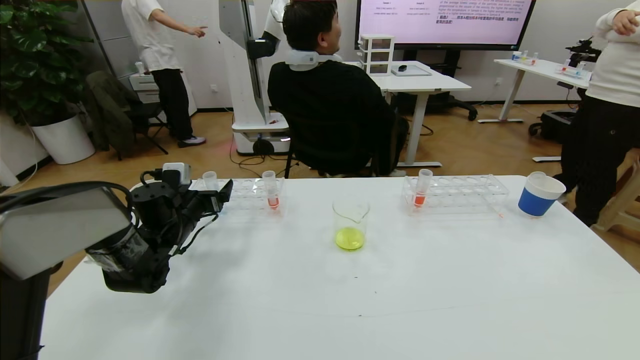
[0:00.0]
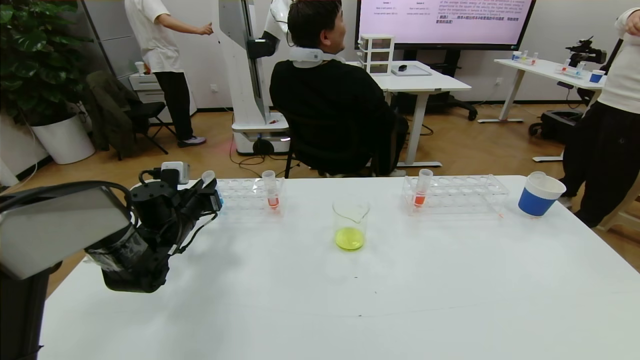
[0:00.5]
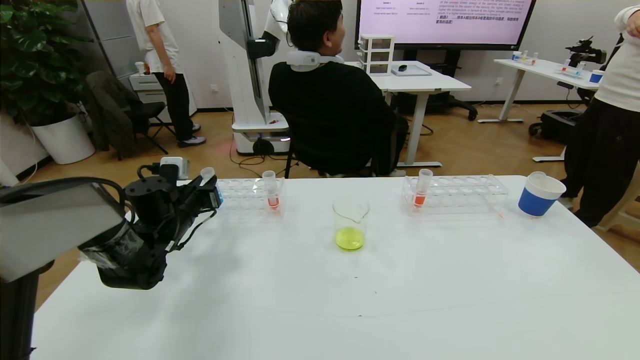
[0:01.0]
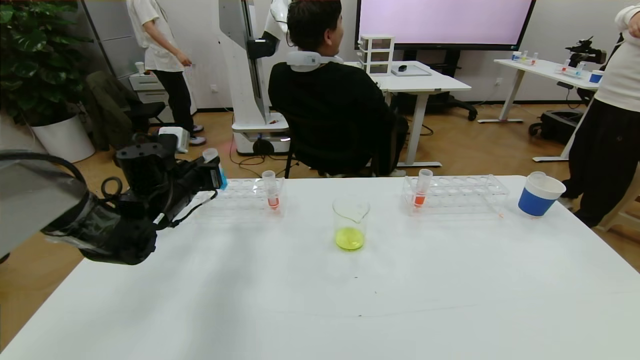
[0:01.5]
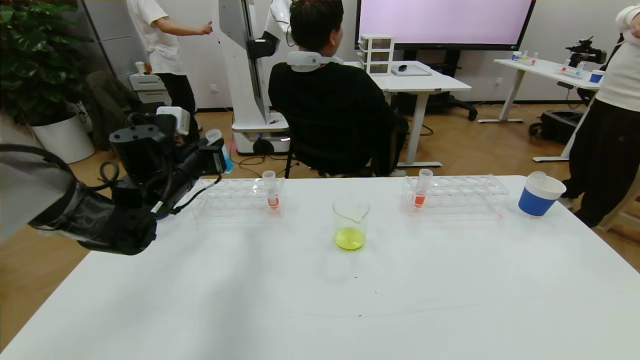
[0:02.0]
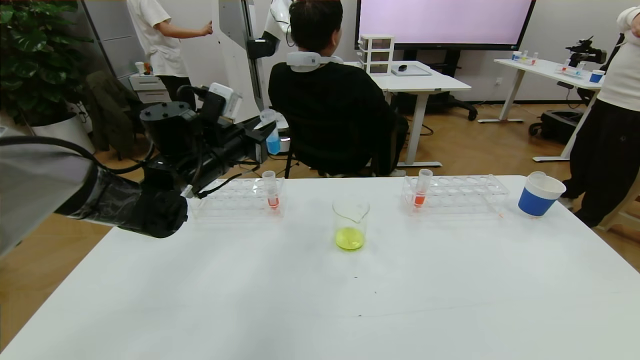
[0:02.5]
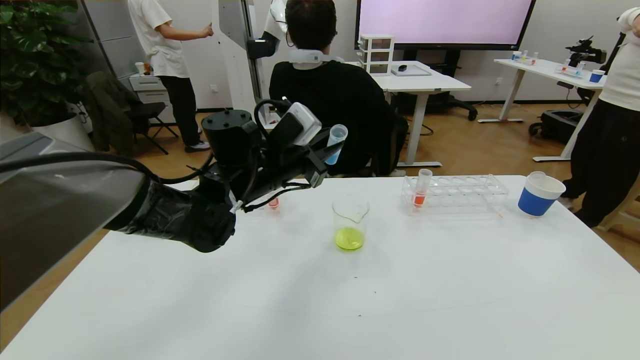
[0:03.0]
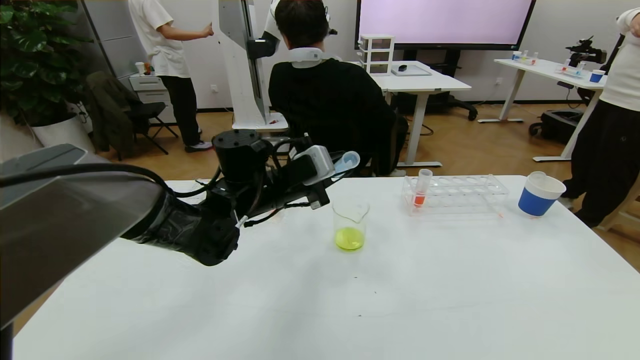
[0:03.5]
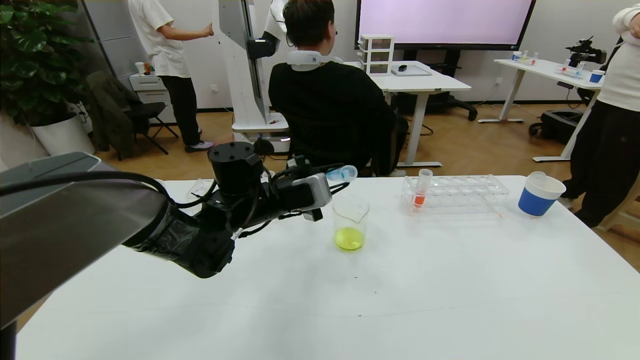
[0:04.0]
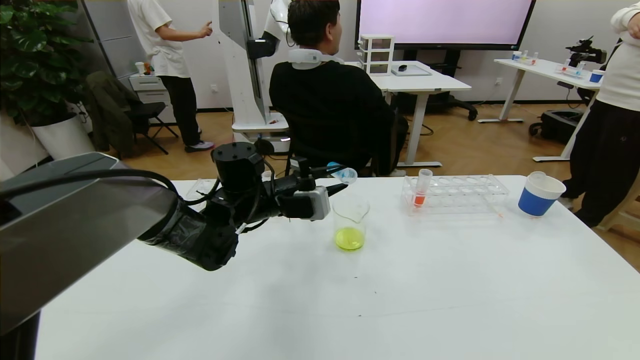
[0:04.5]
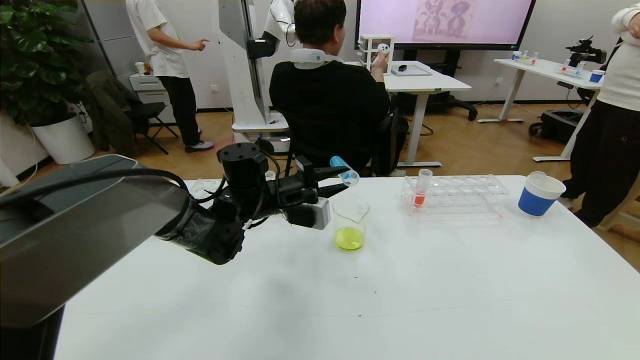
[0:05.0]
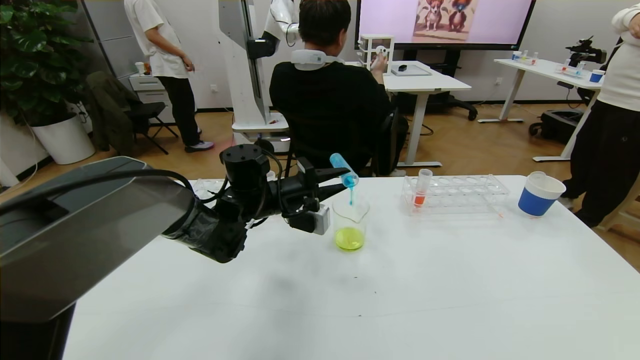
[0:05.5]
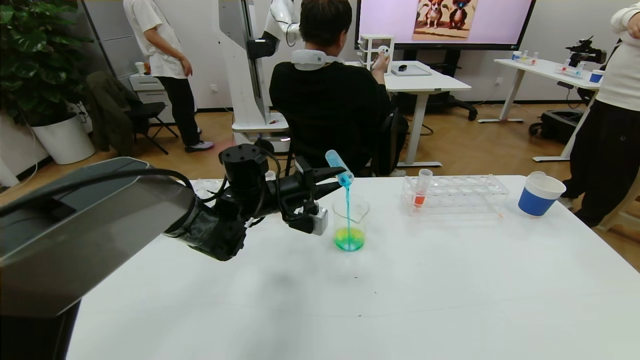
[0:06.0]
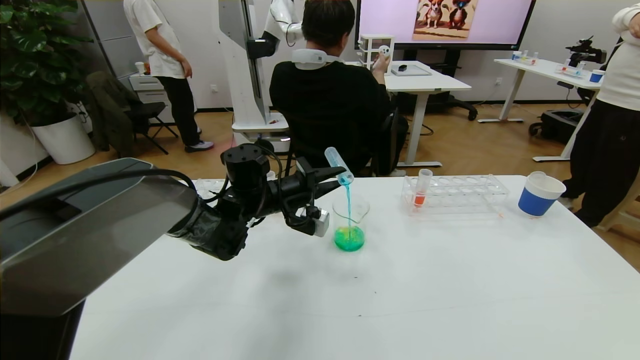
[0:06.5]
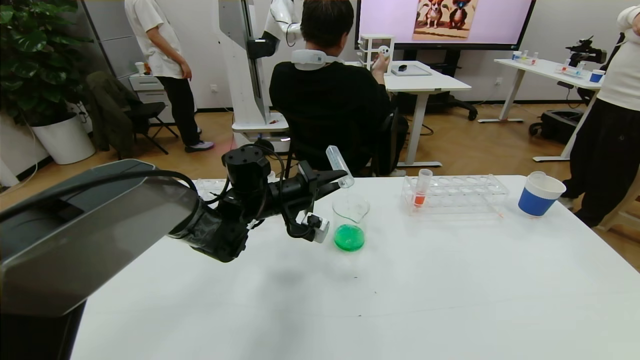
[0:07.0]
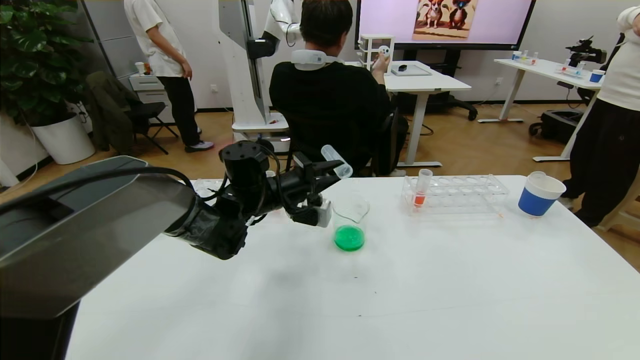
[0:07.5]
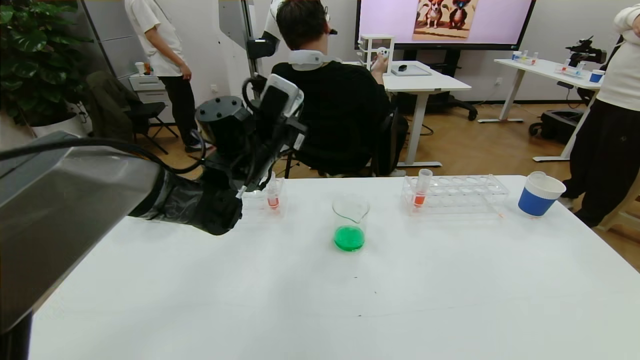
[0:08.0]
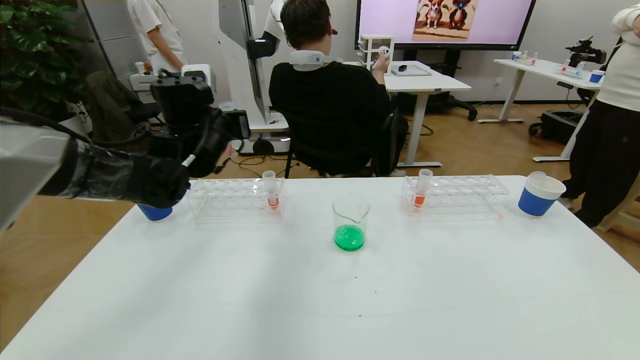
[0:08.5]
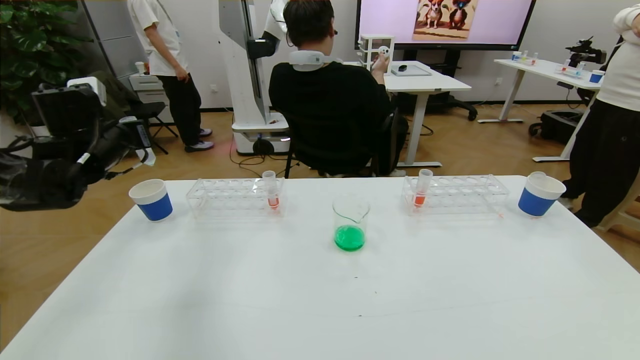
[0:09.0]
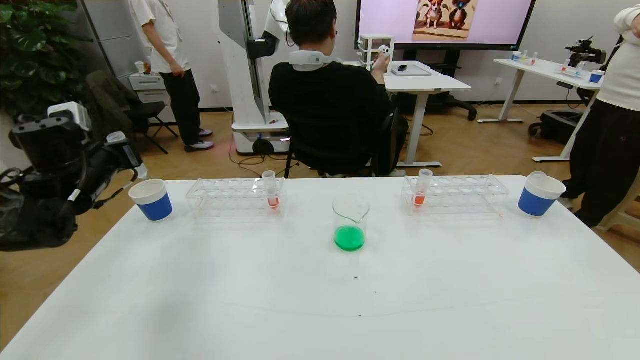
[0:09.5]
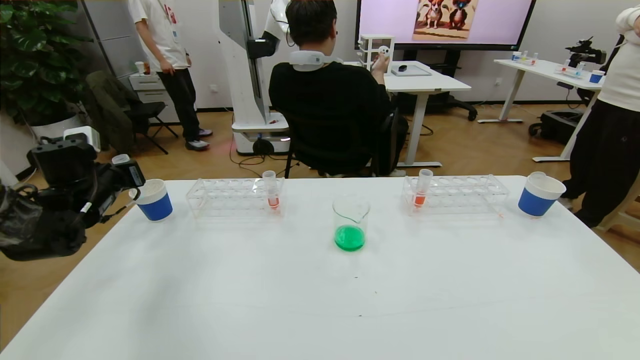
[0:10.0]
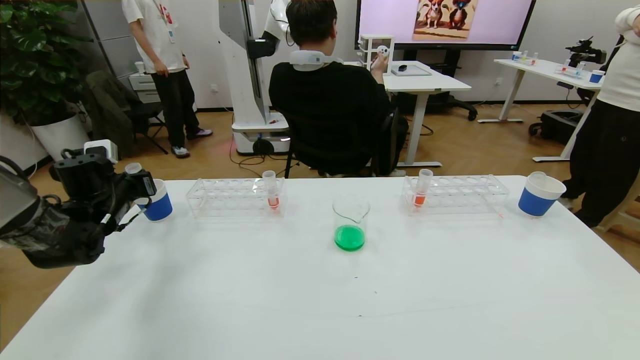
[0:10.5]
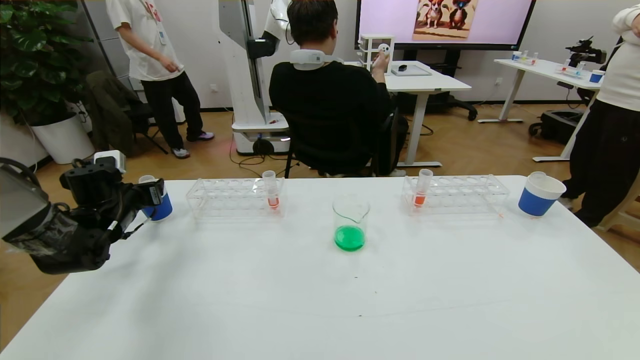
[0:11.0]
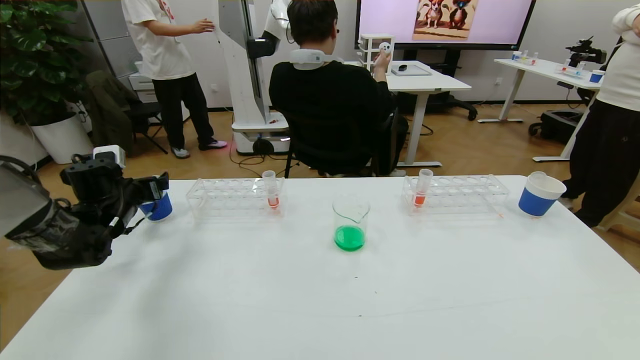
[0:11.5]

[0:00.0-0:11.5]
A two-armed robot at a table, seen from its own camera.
Task of the whole recording: pick up the test tube with yellow pigment and the test tube with blue pigment by grippers and pour them into the beaker.
0:00.0 to 0:02.0: The left gripper heads upward, covering approximately 10 cm, and closes up.
0:02.0 to 0:04.0: The left gripper travels to the right by roughly 15 cm.
0:04.0 to 0:06.0: The left gripper ends up roughly 5 cm from where it was.
0:06.0 to 0:07.5: The grippers move only a little.
0:07.5 to 0:09.5: The left gripper moves to the left, roughly 25 cm.
0:09.5 to 0:11.5: The left gripper heads downward, covering roughly 5 cm, and opens.

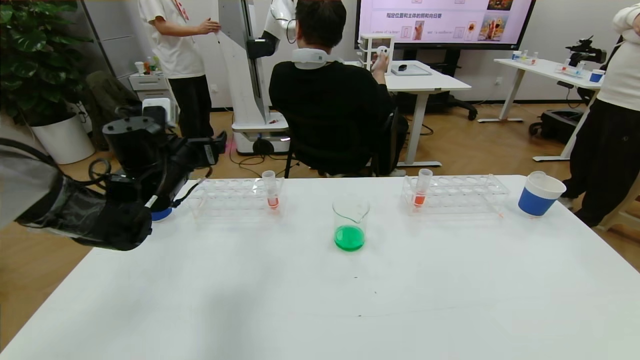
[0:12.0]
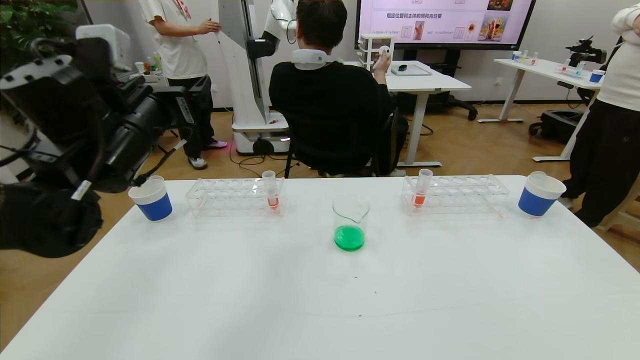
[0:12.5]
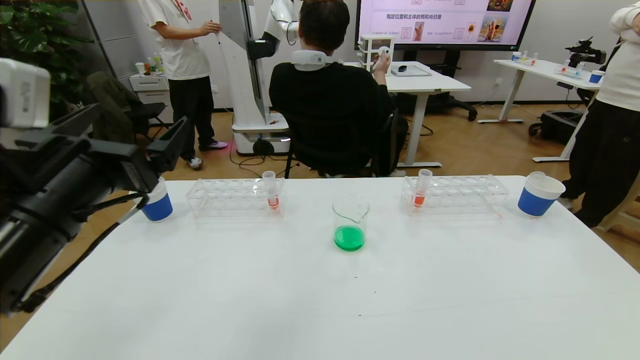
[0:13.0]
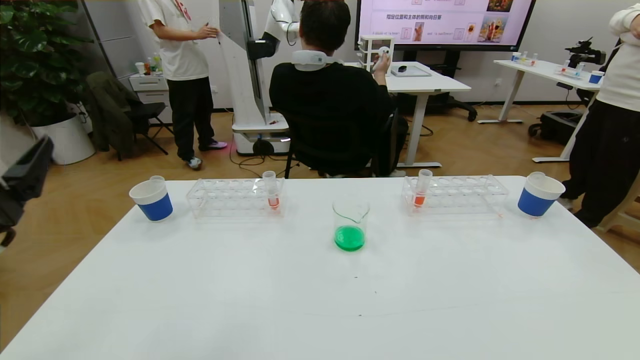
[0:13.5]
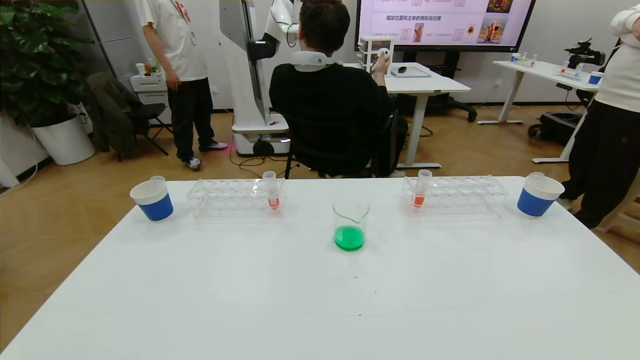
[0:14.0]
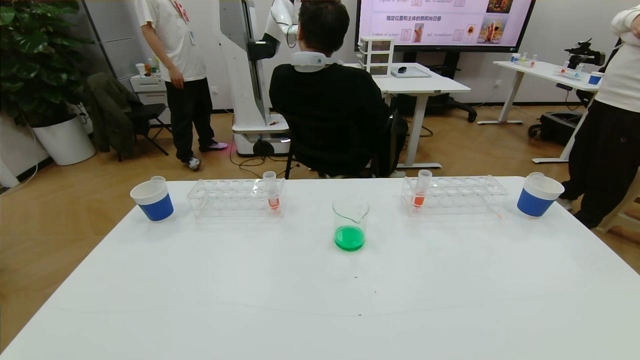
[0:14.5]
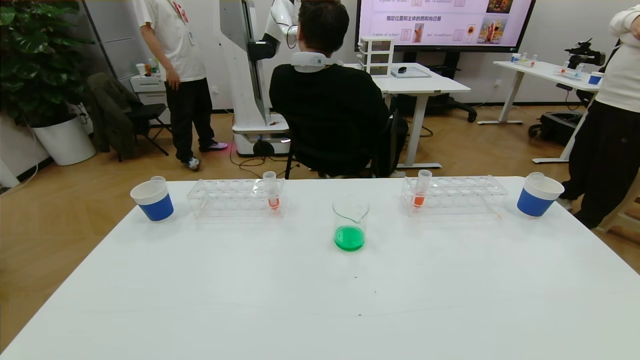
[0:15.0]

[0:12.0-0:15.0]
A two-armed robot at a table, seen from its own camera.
Task of the whole recording: pick up the test tube with yellow pigment and the test tube with blue pigment by grippers and pour them into the beaker.
0:12.0 to 0:13.5: The left gripper is displaced backward by roughly 25 cm.
0:13.5 to 0:15.0: The left gripper is displaced downward and backward by roughly 20 cm.
